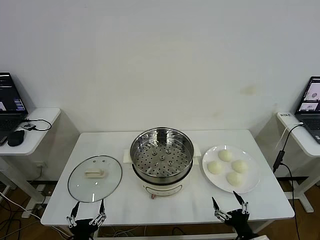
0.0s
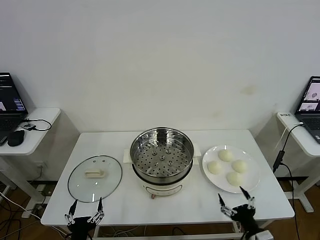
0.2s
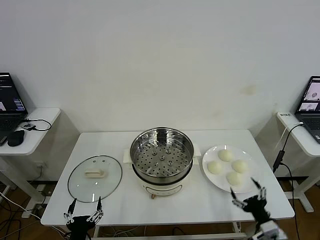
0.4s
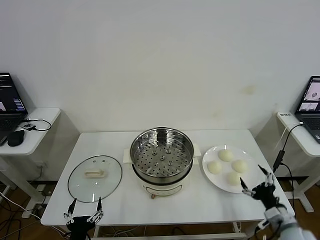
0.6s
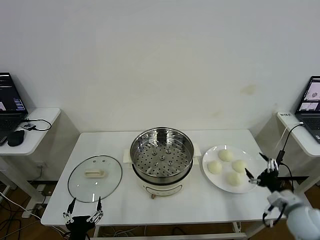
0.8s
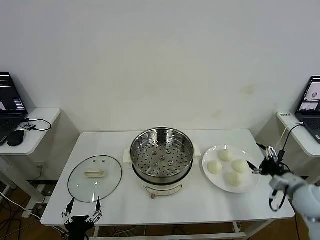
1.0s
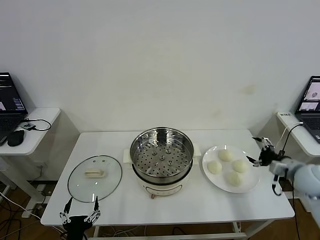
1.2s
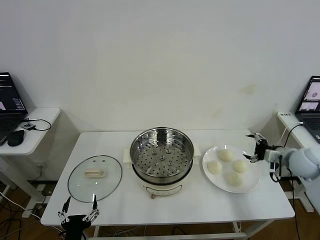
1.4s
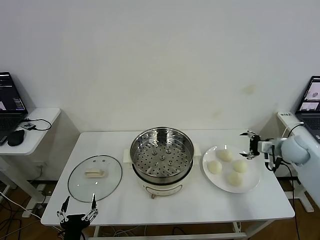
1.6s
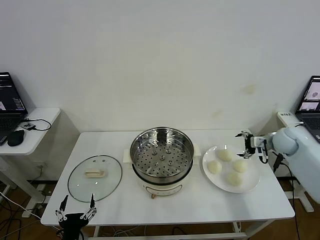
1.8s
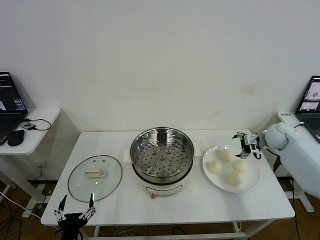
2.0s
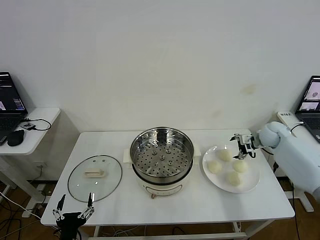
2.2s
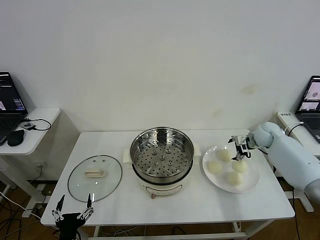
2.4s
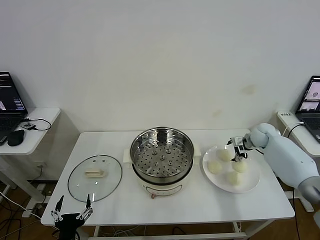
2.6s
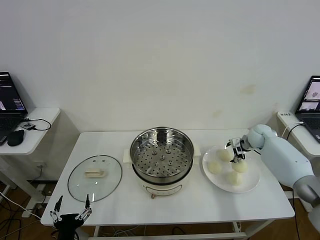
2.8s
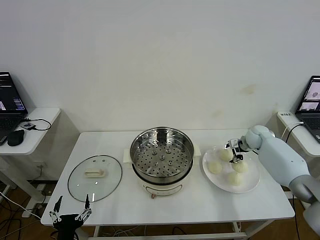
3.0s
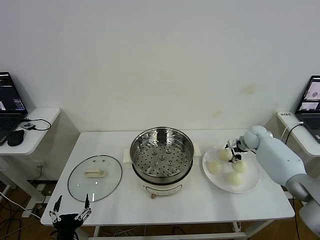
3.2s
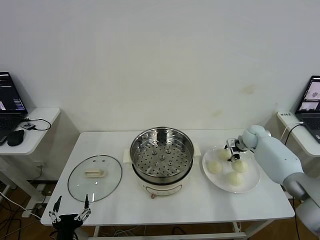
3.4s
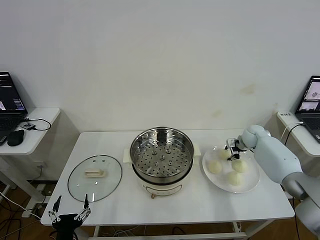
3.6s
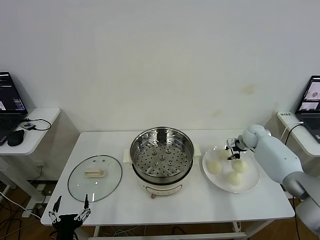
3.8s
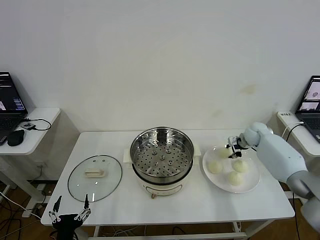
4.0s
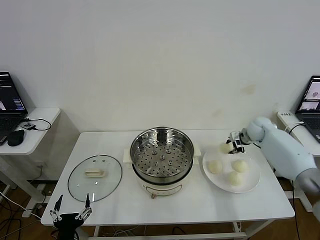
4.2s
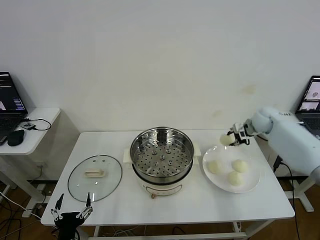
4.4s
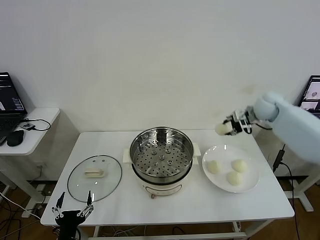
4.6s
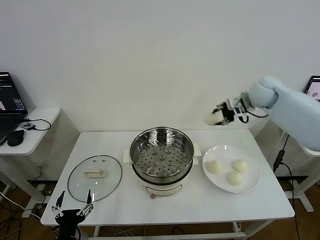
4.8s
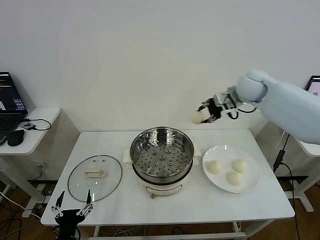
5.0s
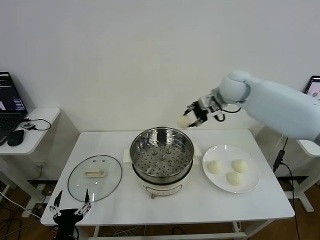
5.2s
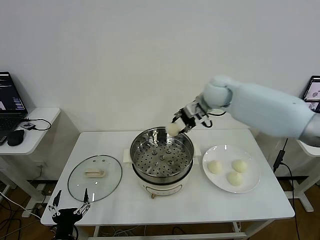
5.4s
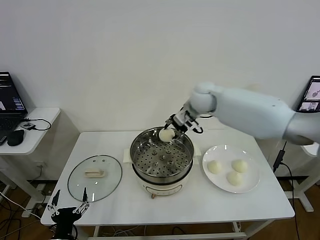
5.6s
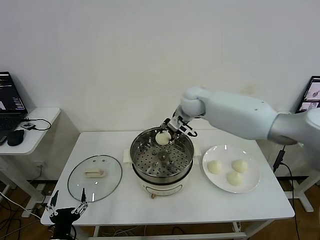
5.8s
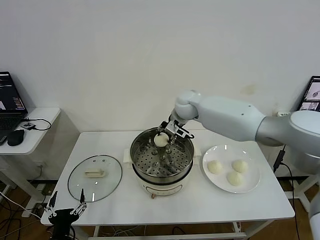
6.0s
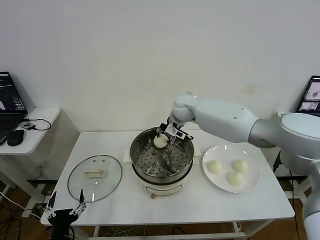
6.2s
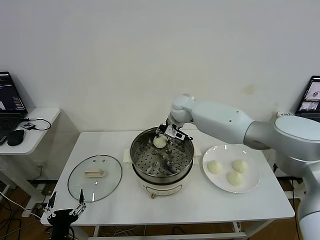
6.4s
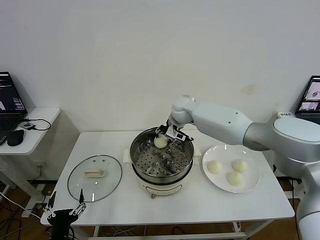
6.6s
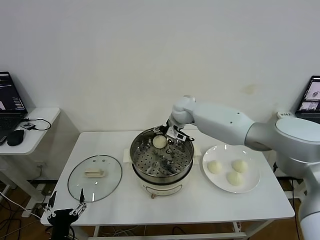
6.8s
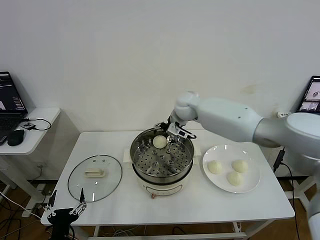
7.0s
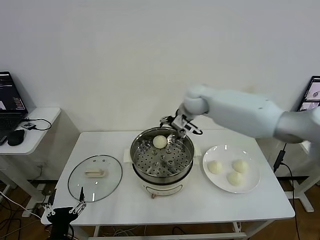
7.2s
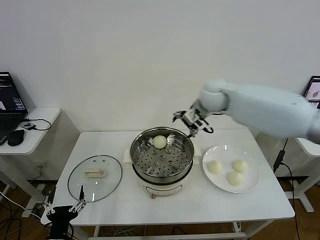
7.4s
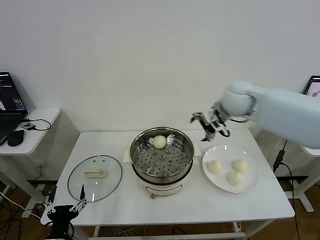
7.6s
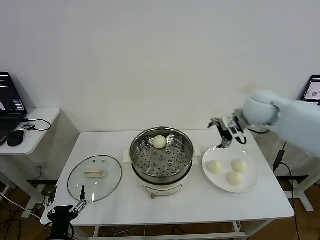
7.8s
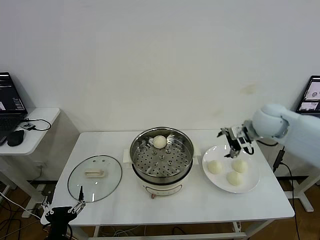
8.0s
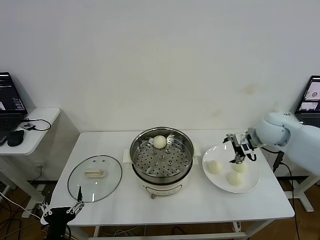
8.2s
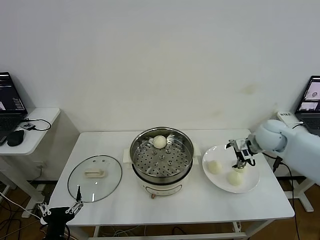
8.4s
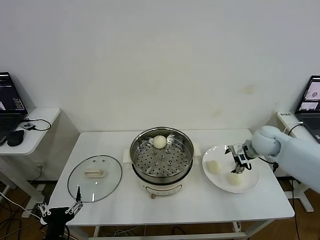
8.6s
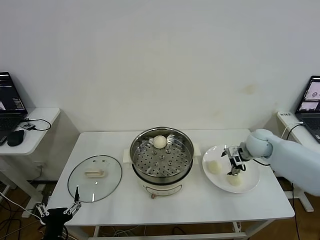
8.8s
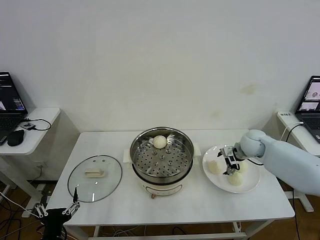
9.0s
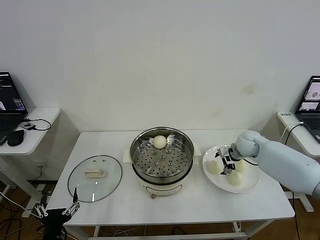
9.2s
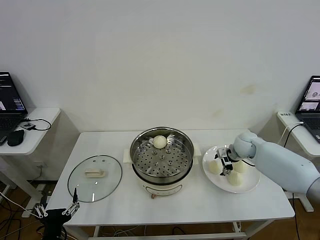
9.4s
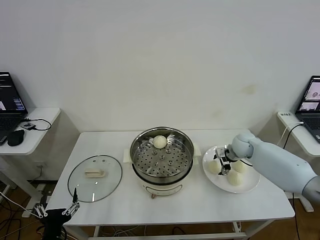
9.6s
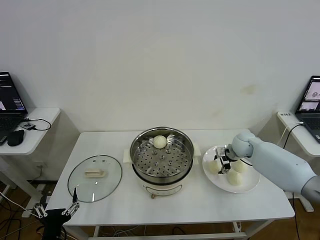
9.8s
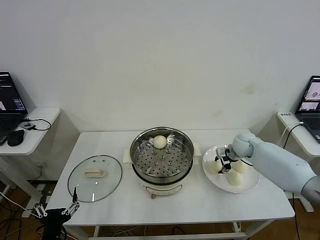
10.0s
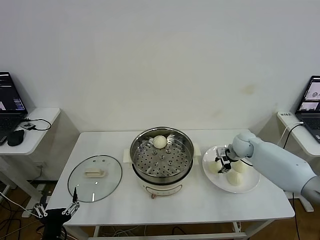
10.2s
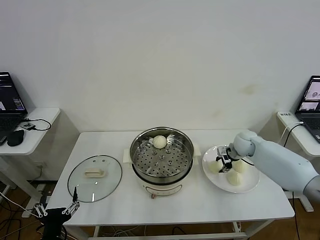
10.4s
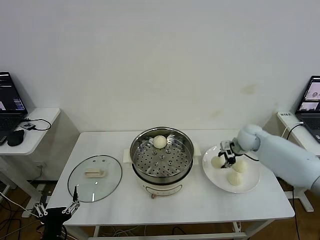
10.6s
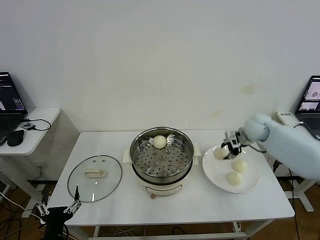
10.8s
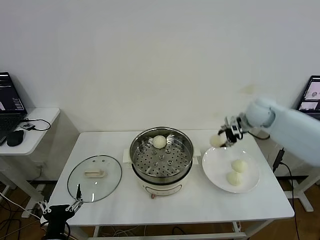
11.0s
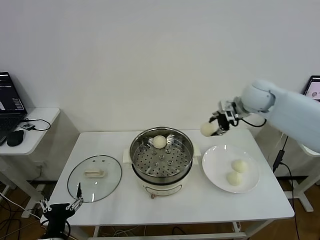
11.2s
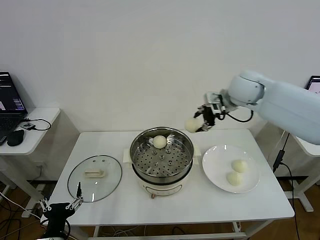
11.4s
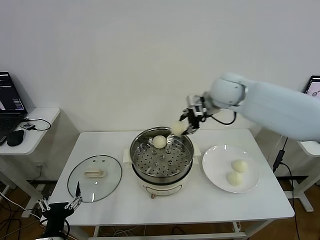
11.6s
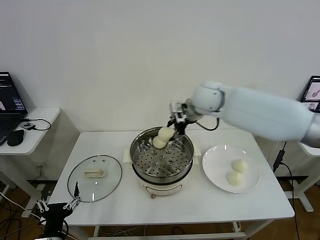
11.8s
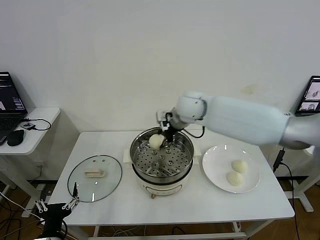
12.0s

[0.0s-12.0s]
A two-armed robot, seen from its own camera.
Step, 0.0s to 3.8s: Grasp the baozi in the plate with right gripper.
Step, 4.0s to 6.6s: Place the baozi on the steamer with right gripper.
Step, 7.0s to 10.2s: Grasp the baozi in the plate with right gripper.
1.6s to 3.0s: The right gripper shifts roughly 15 cm forward, downward and to the left.
3.0s to 4.4s: The right gripper moves upward, some 15 cm, and closes.
4.4s to 6.0s: The right gripper heads to the left, covering about 30 cm.
6.0s to 7.6s: The right gripper shifts roughly 20 cm to the right, backward and upward, and opens its fingers.
7.6s to 9.0s: The right gripper moves downward, about 20 cm.
9.0s to 10.4s: The right gripper closes its fingers.
10.4s to 12.0s: The right gripper goes roughly 30 cm to the left and upward.

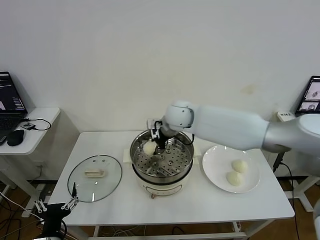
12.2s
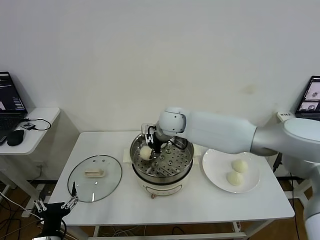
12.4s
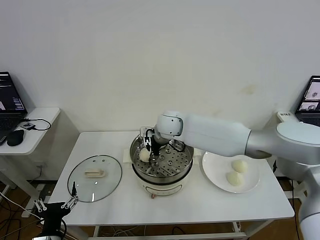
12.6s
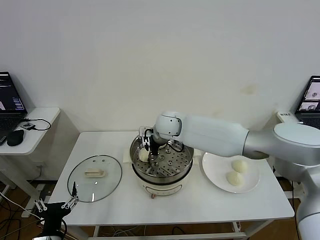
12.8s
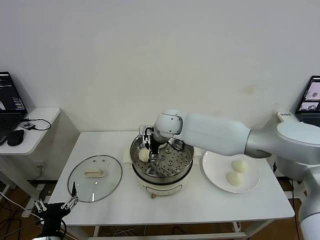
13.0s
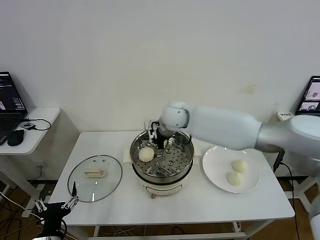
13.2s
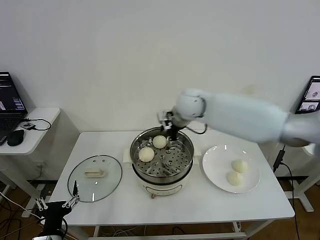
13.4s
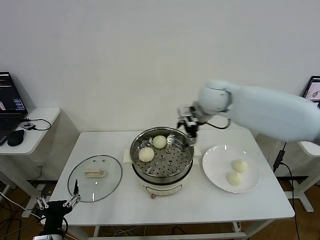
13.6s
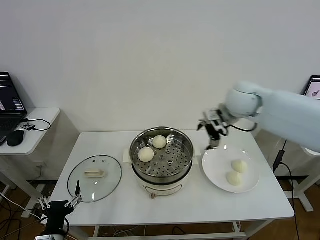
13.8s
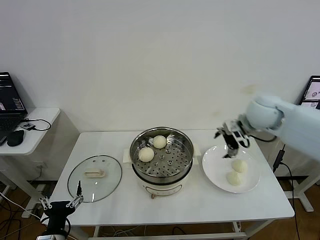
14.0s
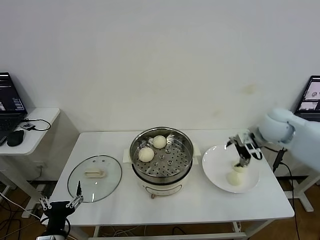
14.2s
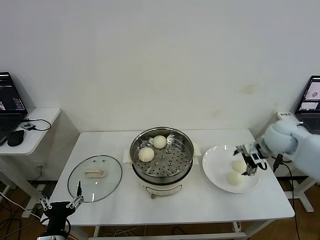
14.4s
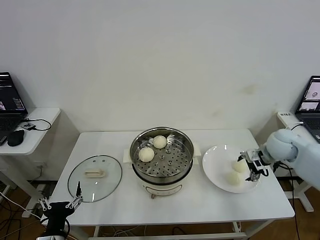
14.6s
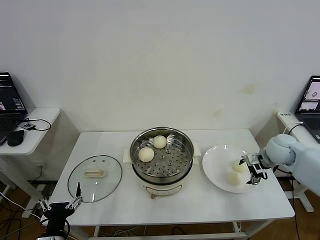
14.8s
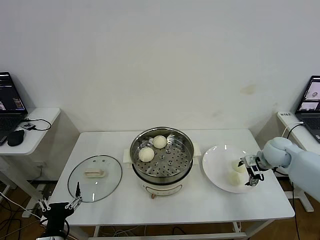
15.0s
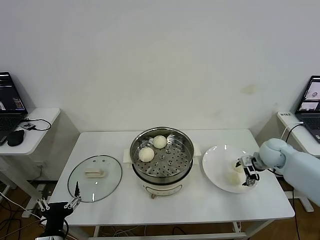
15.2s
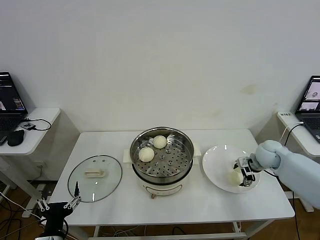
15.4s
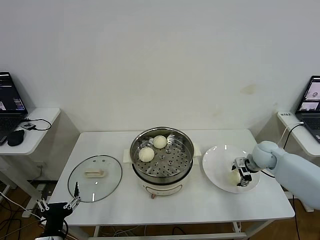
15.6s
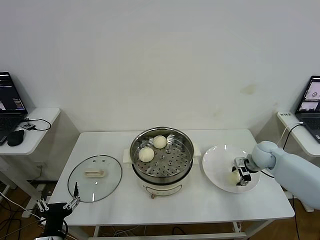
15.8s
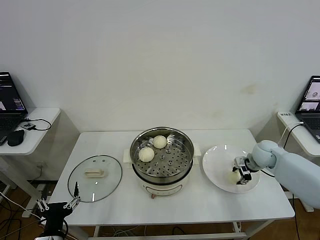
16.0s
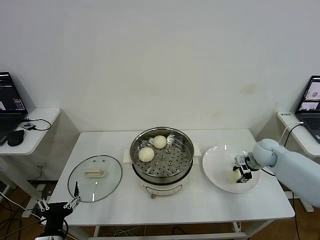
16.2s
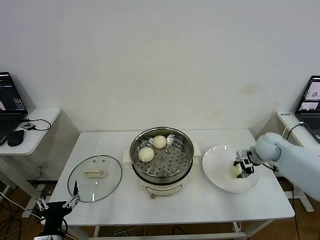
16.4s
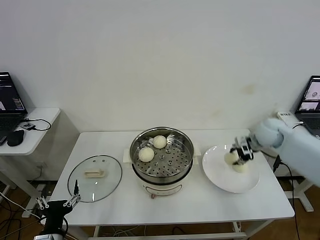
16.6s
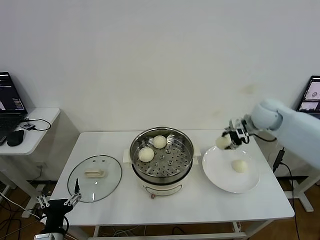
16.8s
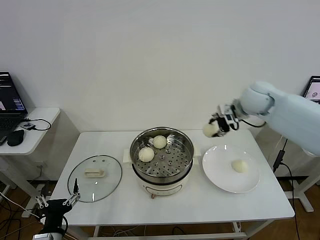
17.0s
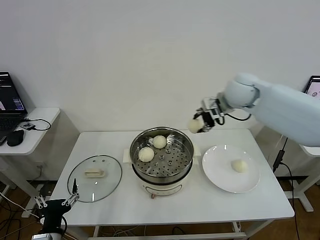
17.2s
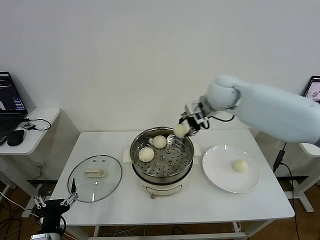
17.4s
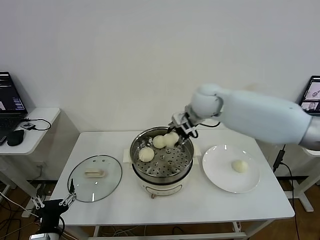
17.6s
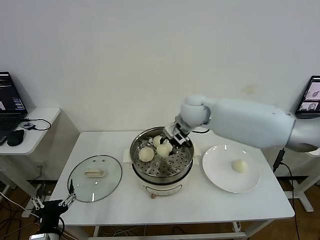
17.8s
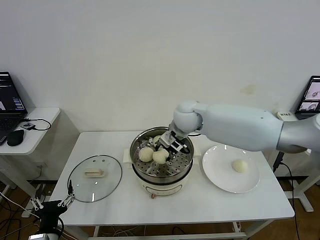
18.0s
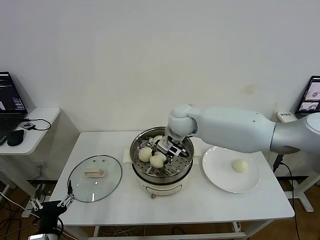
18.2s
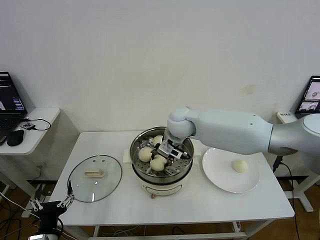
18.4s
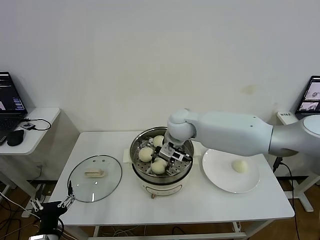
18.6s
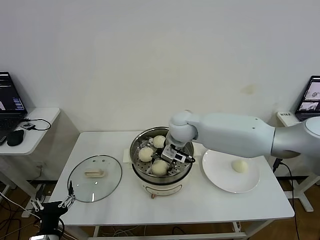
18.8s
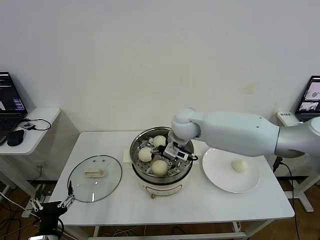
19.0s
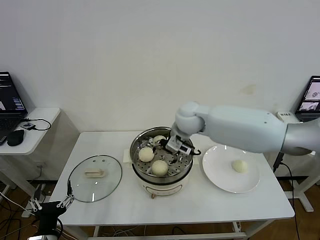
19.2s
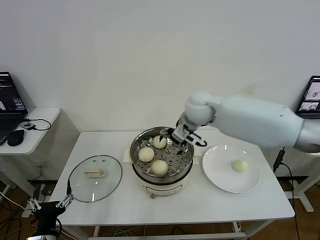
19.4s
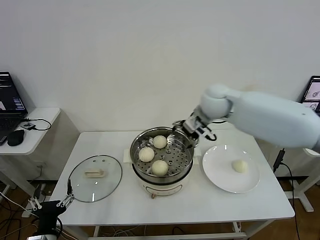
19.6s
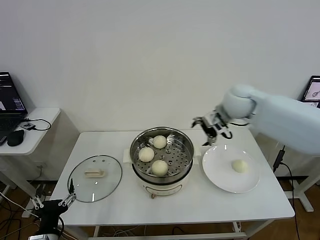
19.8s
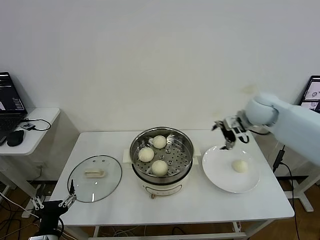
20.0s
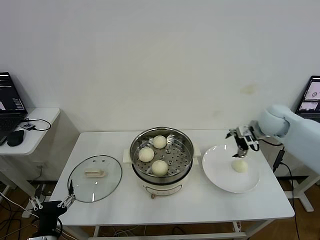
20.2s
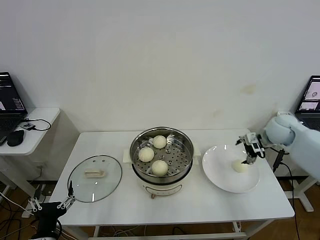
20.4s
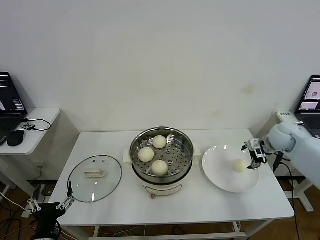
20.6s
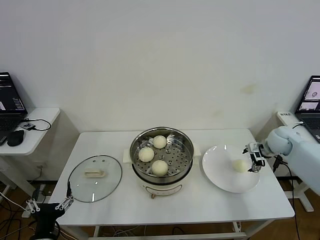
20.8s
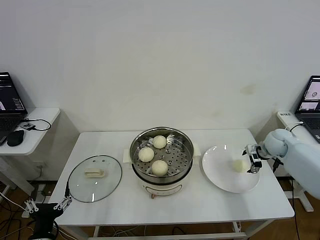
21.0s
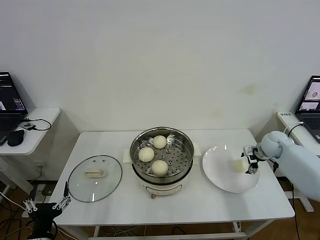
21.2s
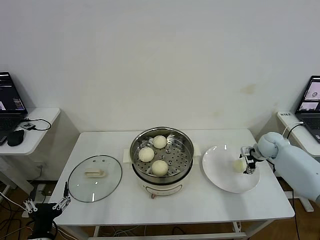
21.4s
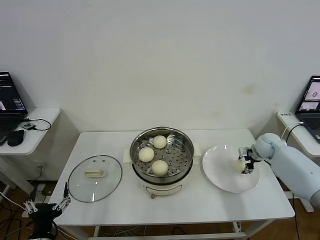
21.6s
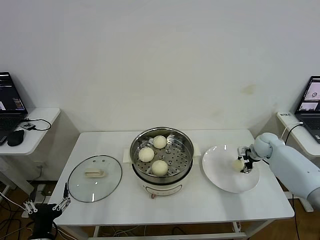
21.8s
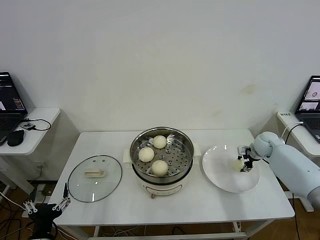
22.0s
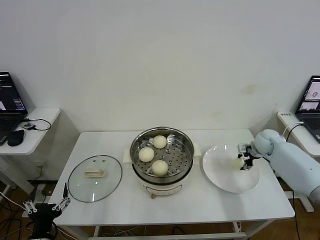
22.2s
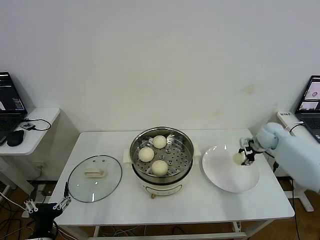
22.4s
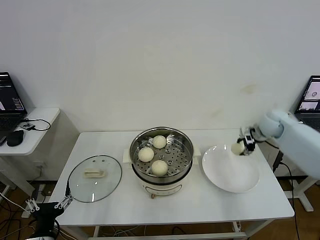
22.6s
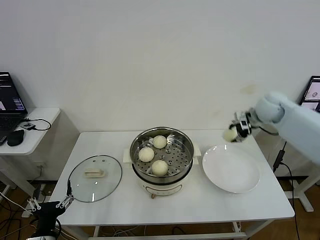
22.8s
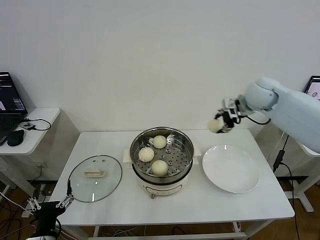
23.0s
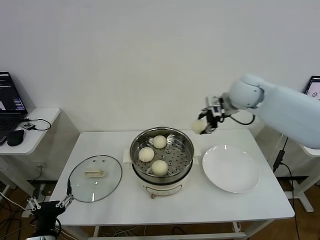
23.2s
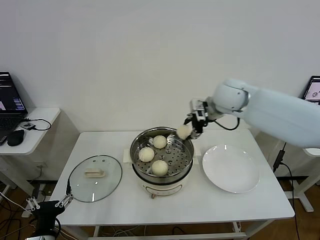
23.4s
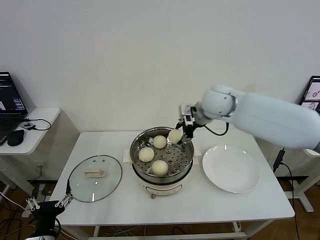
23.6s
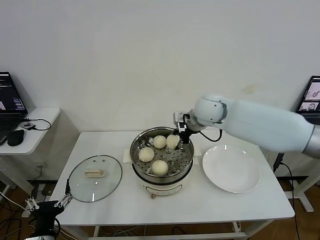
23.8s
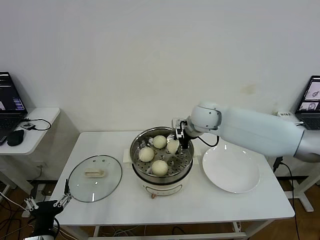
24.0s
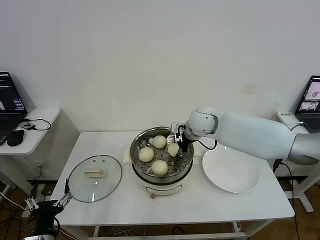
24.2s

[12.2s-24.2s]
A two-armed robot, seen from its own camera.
Step, 13.2s to 16.2s: Grasp the baozi in the plate with right gripper.
Step, 16.4s to 19.0s: Place the baozi on the steamer with right gripper.
Step, 19.2s to 22.0s: Grasp the baozi in the plate with right gripper.
12.2s to 13.8s: The right gripper is displaced to the right by roughly 20 cm, and opens.
13.8s to 15.2s: The right gripper travels downward and to the right by approximately 25 cm.
15.2s to 16.6s: The right gripper moves upward, about 10 cm, and closes.
16.6s to 18.2s: The right gripper is displaced to the left by approximately 30 cm.
18.2s to 19.8s: The right gripper goes about 20 cm to the right, and opens its fingers.
19.8s to 21.2s: The right gripper shifts some 25 cm downward and to the right.
21.2s to 22.6s: The right gripper heads upward, covering about 10 cm, and closes up.
22.6s to 24.2s: The right gripper is displaced to the left by about 25 cm.
